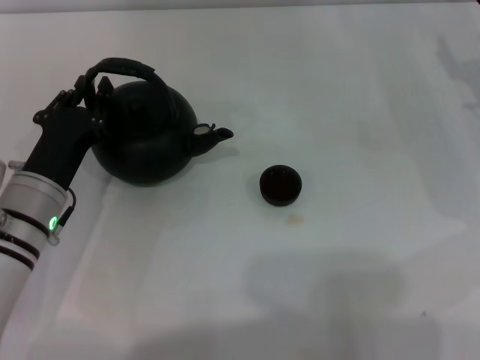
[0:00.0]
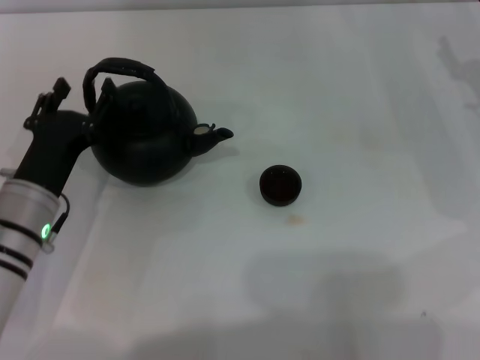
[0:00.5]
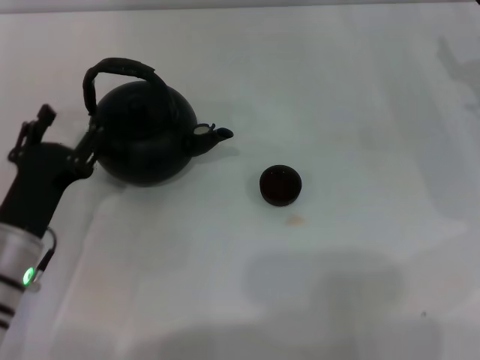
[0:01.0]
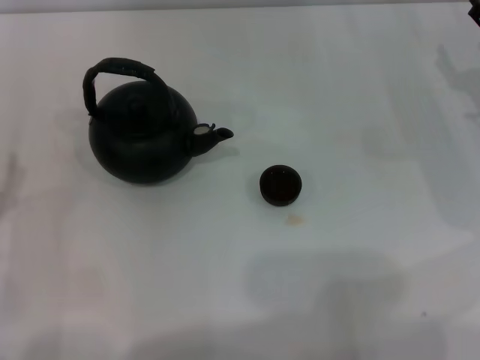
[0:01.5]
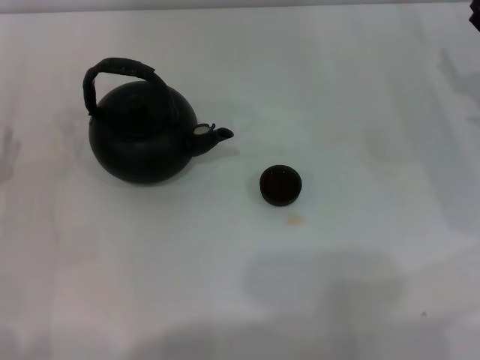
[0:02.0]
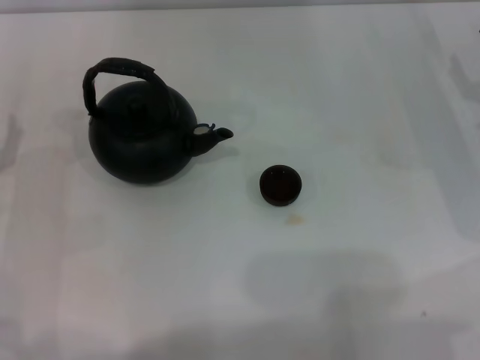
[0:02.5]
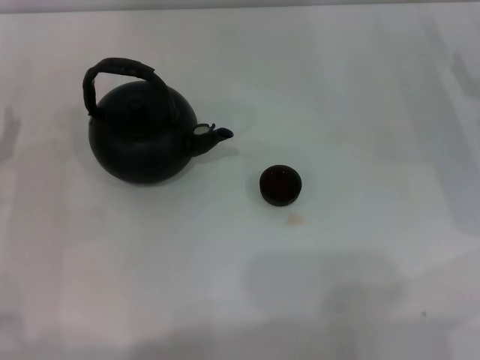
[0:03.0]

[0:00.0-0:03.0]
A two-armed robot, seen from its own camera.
Task of the whole recording: Grasp the handle of the teapot with one hand and pour tea into the teacup.
0:00.0 to 0:01.5: The left gripper travels to the left and backward by some 10 cm, and opens its fingers.
